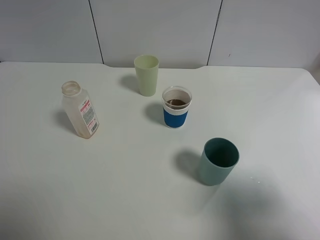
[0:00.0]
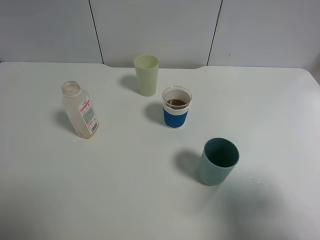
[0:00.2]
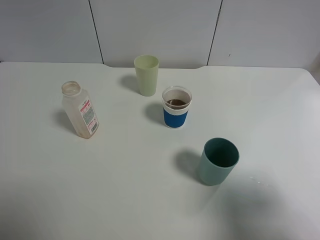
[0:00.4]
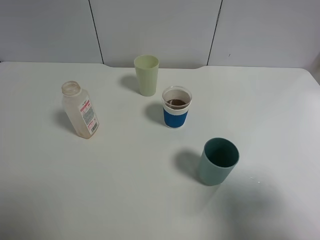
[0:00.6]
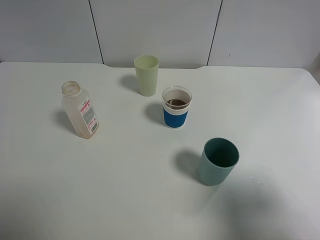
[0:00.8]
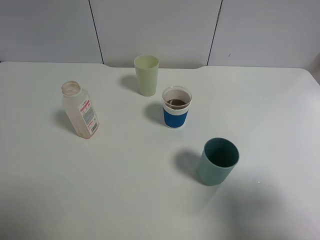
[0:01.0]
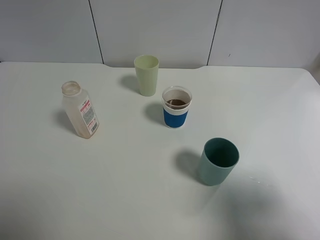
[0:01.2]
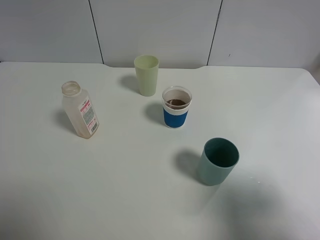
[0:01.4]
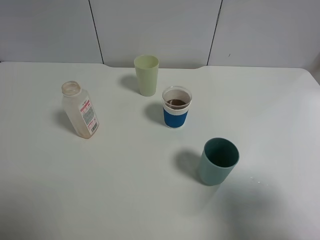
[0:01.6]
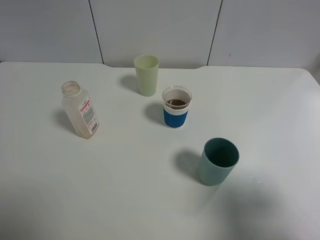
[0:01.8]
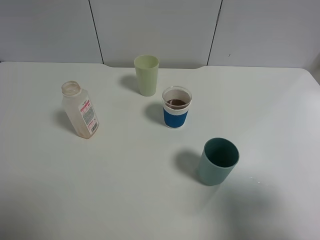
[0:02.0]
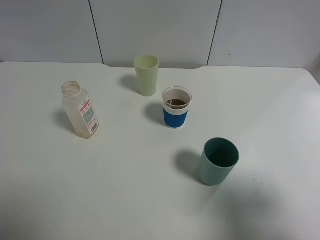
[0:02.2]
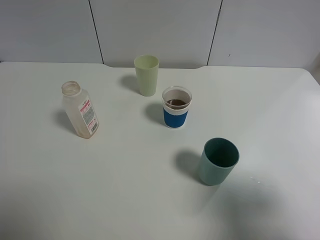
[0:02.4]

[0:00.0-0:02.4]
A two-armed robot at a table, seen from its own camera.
Task of the whole recording: use a gripper to hold the bottle of the drink and pour it into a random cup.
0:00.0 to 0:02.4: Both grippers stay about where they are.

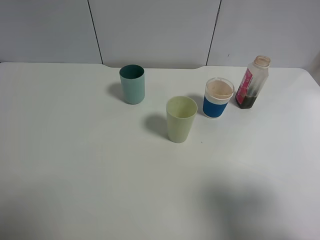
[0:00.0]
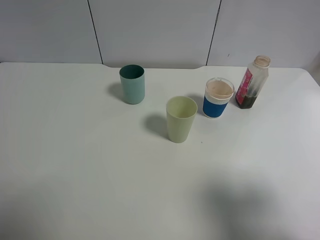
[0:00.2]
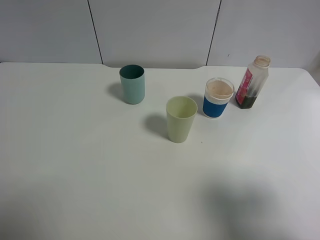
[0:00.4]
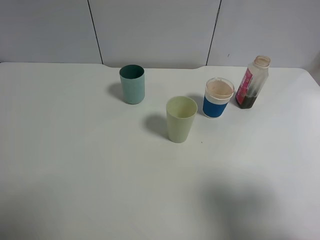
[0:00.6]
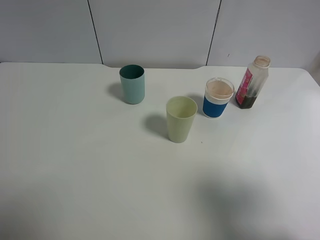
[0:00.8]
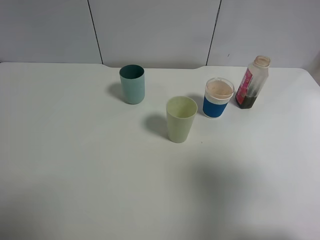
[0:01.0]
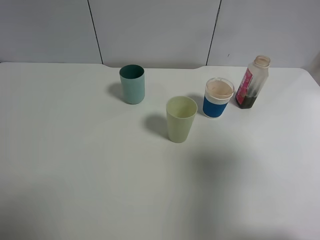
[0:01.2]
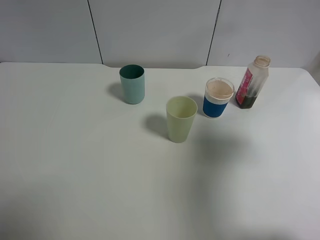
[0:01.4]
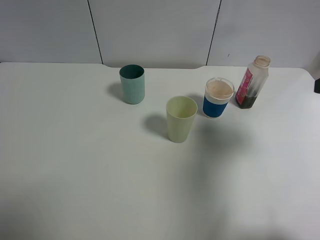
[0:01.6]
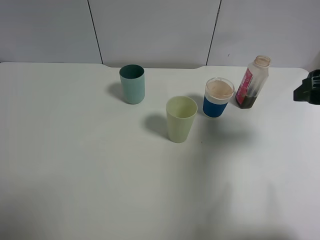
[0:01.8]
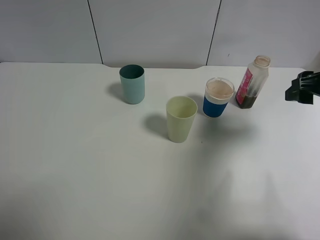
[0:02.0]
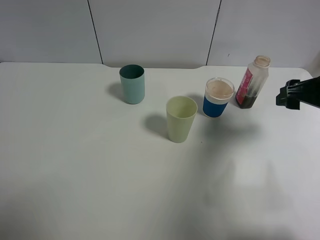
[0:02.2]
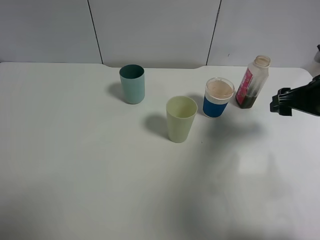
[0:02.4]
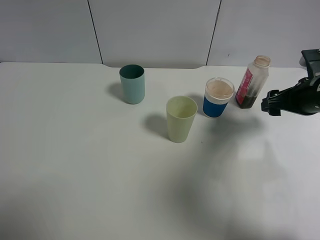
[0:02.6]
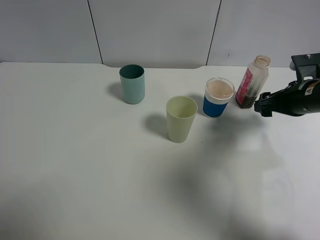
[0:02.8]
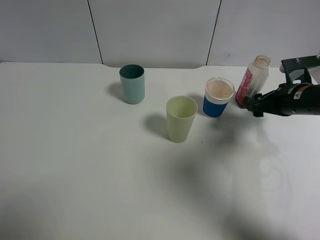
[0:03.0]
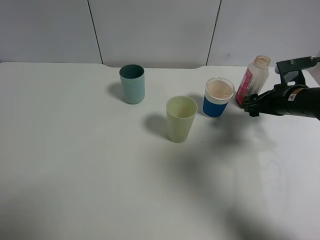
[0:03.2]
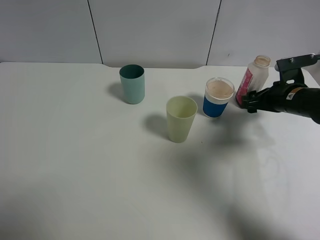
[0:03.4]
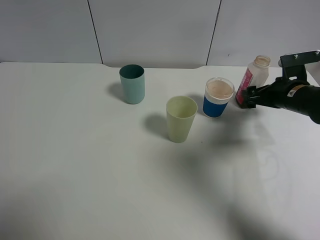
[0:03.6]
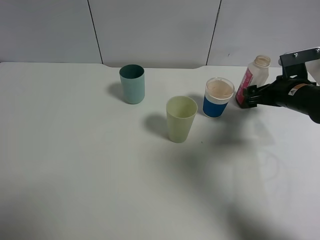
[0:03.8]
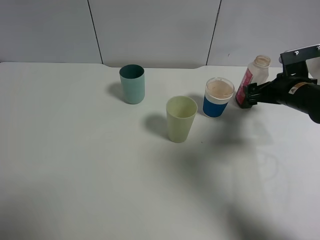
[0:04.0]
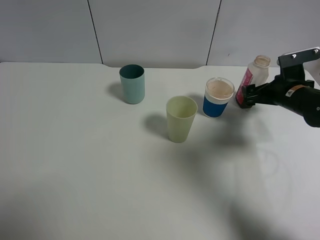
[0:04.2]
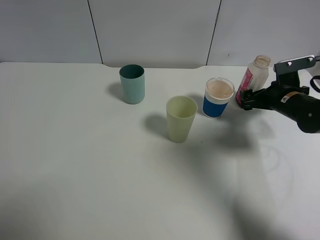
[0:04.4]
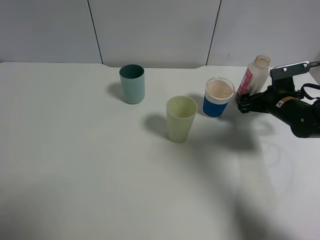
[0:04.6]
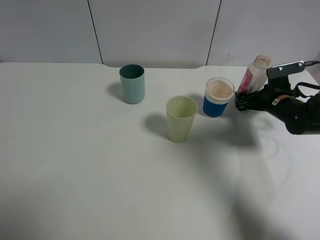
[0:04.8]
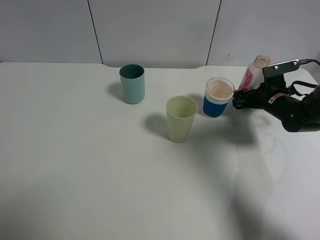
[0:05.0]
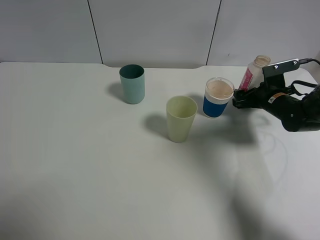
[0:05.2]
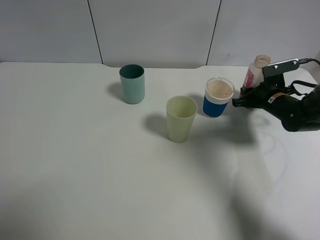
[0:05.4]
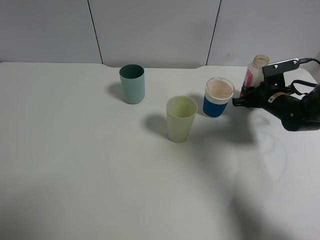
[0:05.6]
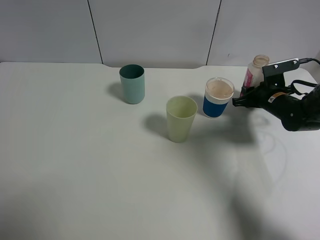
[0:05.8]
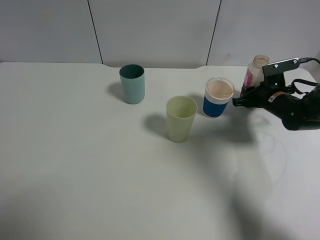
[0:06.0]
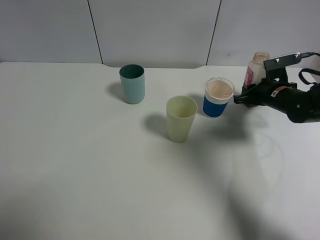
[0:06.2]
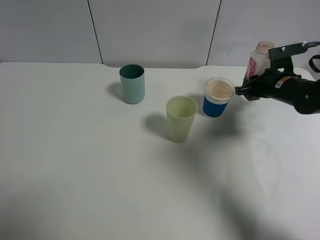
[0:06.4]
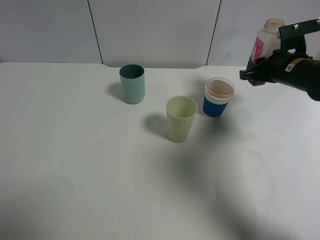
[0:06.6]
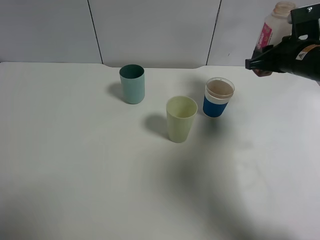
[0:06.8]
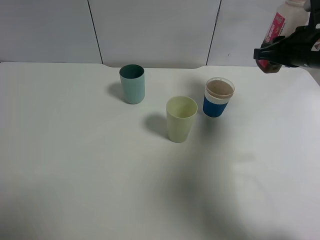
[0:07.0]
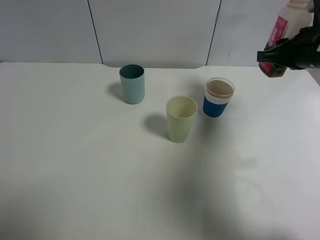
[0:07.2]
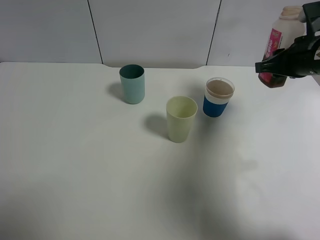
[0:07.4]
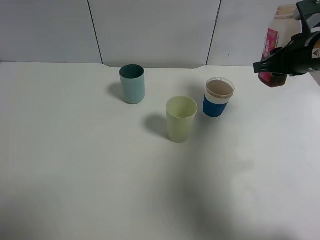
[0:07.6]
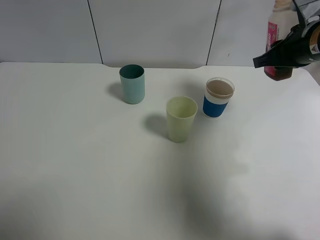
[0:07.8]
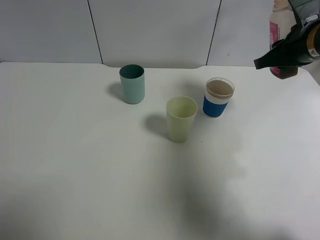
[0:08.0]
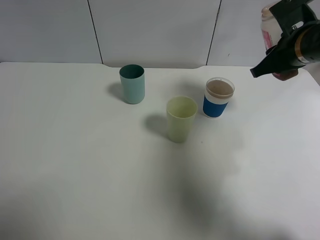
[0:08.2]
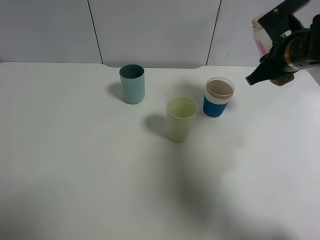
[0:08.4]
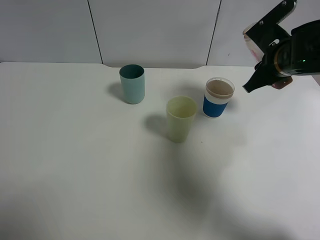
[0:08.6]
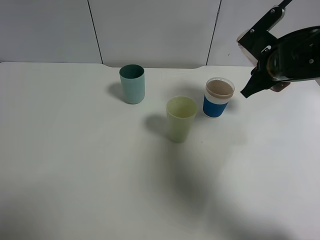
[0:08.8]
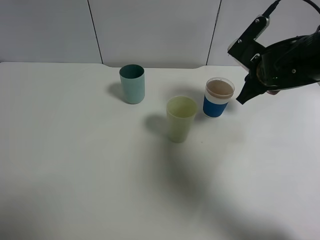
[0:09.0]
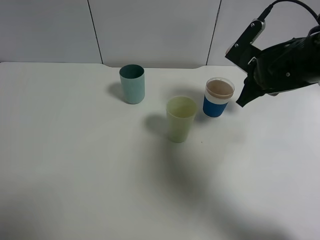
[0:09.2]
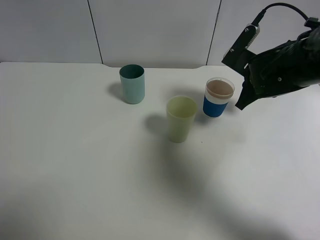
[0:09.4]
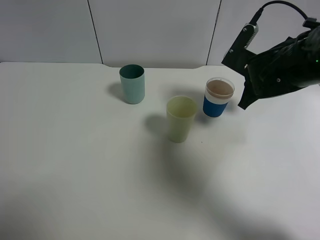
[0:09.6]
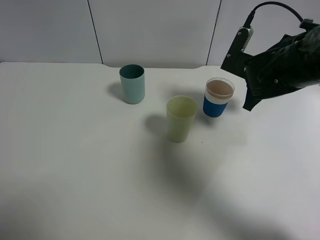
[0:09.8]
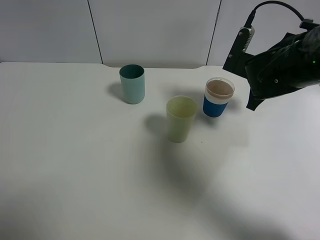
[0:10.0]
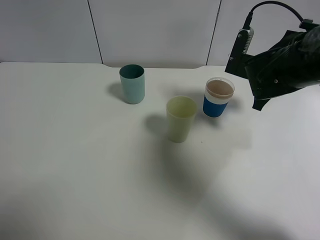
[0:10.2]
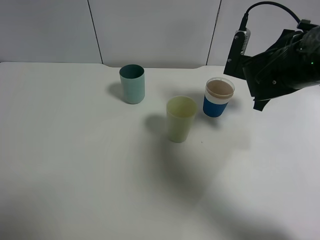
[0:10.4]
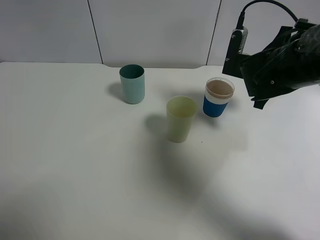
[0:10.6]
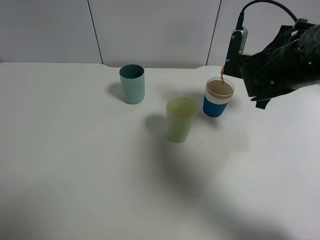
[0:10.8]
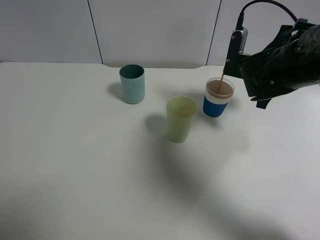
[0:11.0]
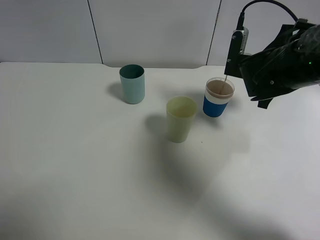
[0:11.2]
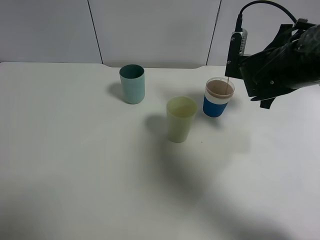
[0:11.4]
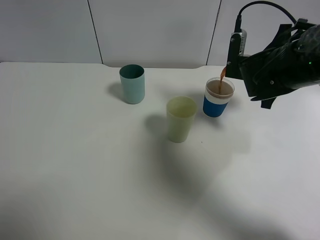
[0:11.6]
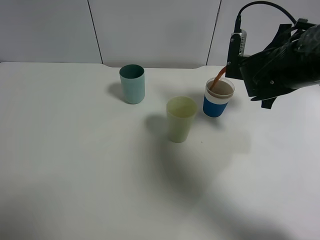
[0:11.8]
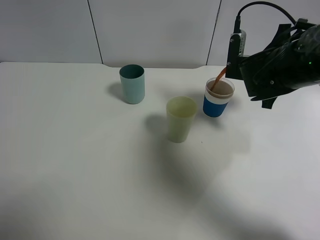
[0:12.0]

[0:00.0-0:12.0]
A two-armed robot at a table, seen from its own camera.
Task of the whole recording: use a gripper to hold the bottle of the drink and pour it into a random cup.
Step, 0:00.0 to 0:05.6: Grasp the cranberry juice bottle with the right gripper.
0:00.0 to 0:01.6: The right gripper goes roughly 15 cm forward.
0:01.6 to 0:03.0: The right gripper shifts approximately 20 cm downward and forward.
0:03.0 to 0:04.4: There are only small adjustments of the grippers.
0:04.4 to 0:06.0: The right gripper closes.
0:06.0 to 0:07.6: The right gripper shifts roughly 15 cm upward.
0:07.6 to 0:09.0: The right gripper shifts approximately 10 cm to the left and downward.
0:10.4 to 0:12.0: There are only small adjustments of the grippers.

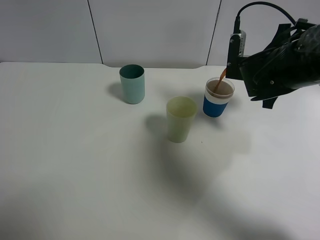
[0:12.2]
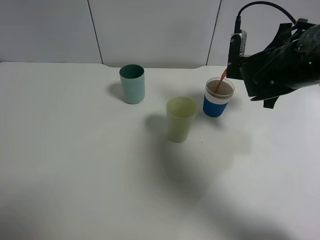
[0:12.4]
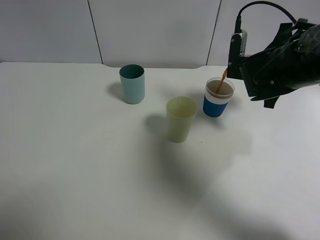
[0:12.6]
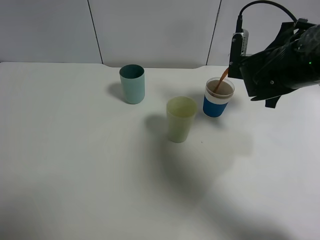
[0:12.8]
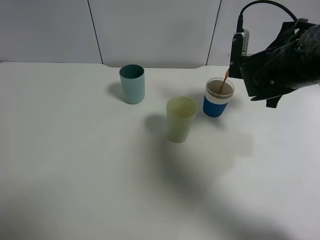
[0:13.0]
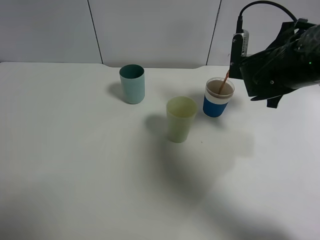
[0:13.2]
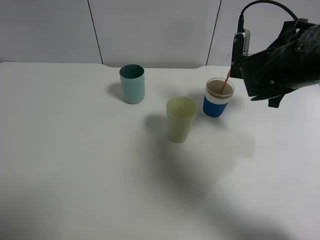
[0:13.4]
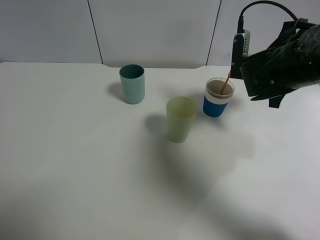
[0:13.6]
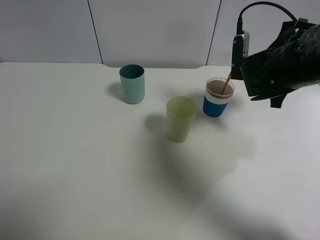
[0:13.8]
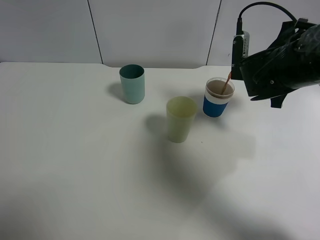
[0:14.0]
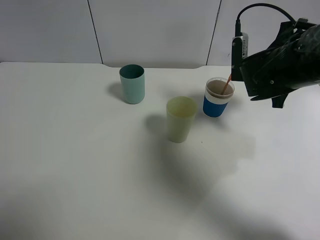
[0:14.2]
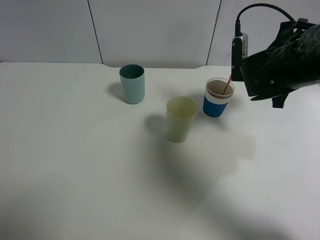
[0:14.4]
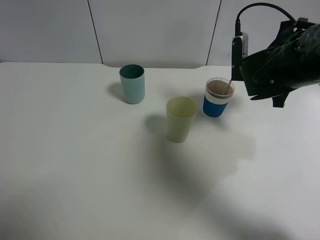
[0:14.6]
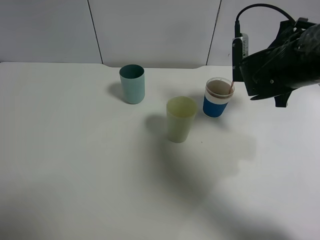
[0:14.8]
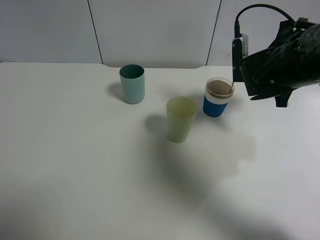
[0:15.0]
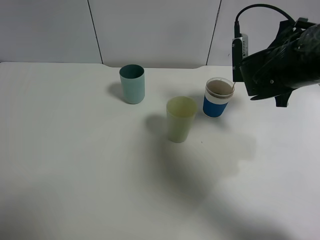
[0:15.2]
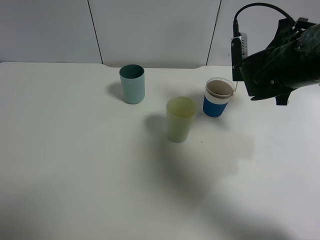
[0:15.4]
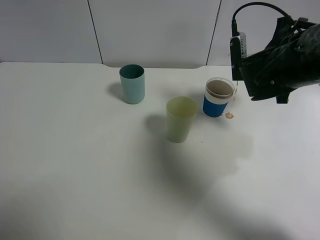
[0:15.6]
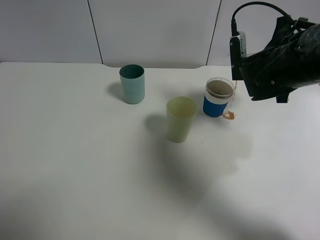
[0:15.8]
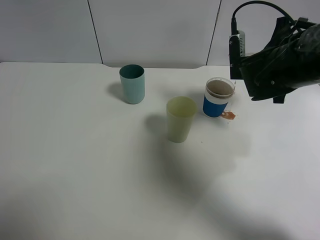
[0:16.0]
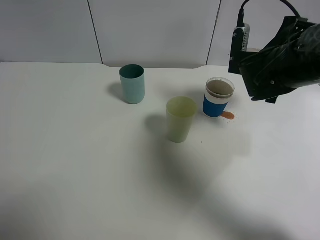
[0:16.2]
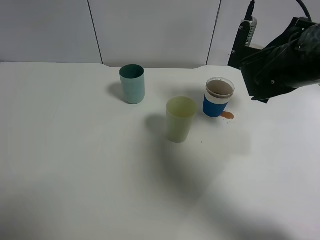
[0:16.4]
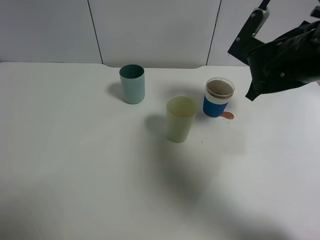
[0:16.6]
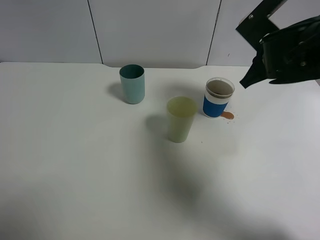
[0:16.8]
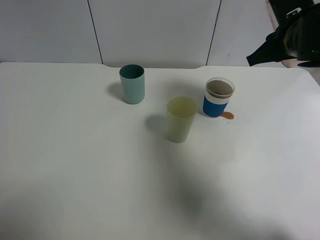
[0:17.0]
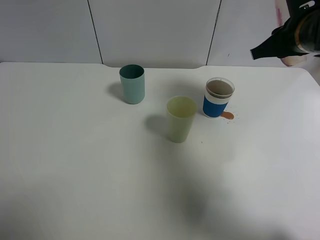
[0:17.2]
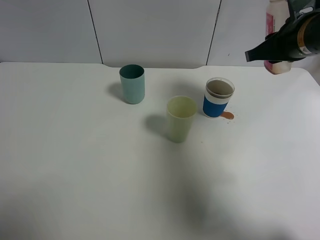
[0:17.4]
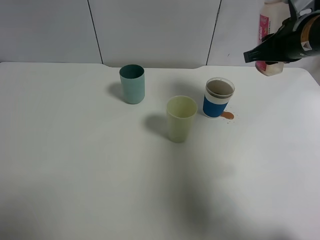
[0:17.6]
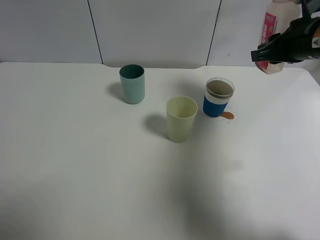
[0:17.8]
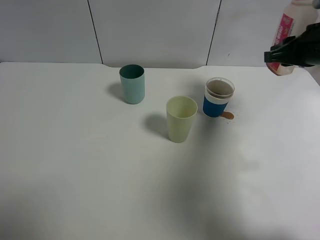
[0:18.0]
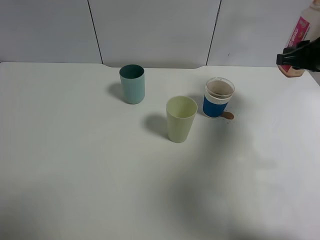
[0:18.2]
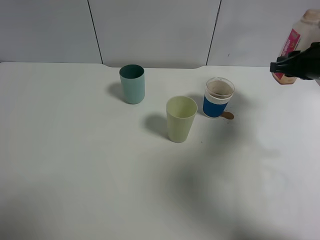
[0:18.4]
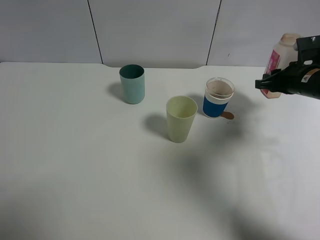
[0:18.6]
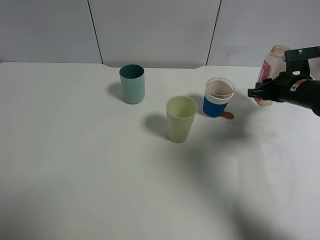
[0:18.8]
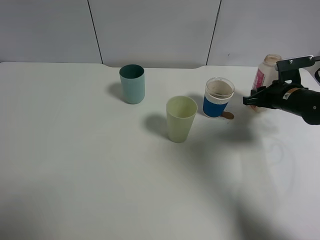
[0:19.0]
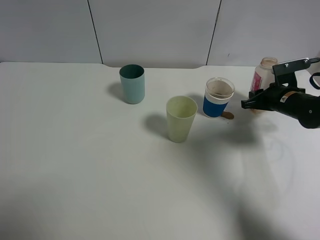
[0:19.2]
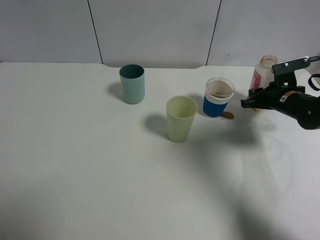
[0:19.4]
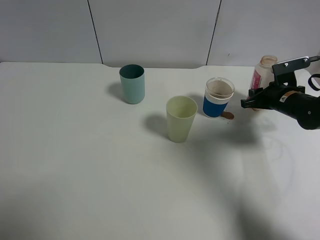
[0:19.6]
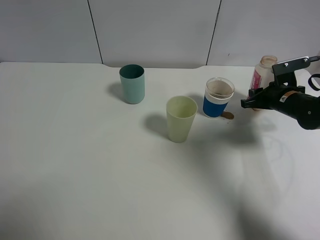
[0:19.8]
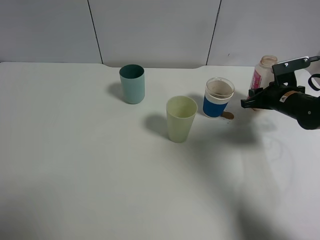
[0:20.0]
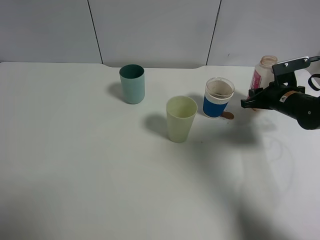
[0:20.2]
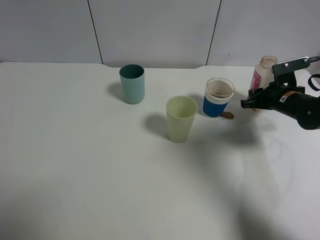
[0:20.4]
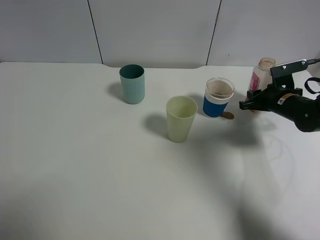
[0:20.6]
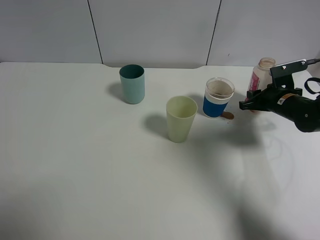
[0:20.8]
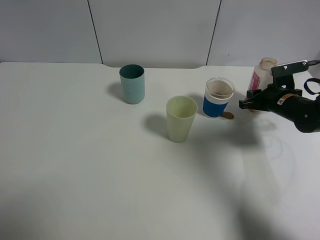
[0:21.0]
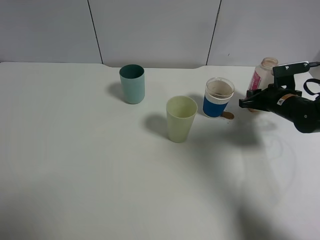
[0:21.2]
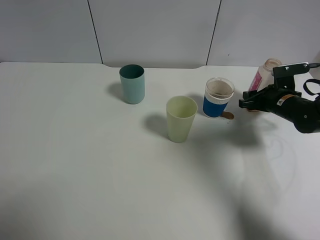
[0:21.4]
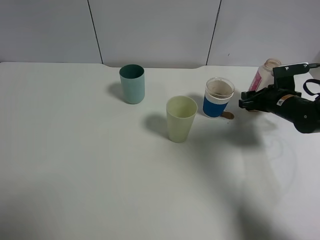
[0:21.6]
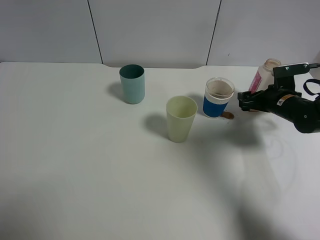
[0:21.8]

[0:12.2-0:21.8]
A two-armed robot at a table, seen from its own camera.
Task of the whole recording: use a gripper to hold the bottle of the drink and pour it into a random cup.
Step, 0:12.2 to 0:16.4: Pour the cranberry juice into the paper cup with the right gripper.
0:12.2 to 0:15.4: There are only small adjustments of the grippers.
0:15.4 to 0:17.0: The right gripper heads upward, covering some 5 cm.
0:17.0 to 0:18.6: The right gripper is displaced downward and to the right by about 15 cm.
0:18.6 to 0:20.2: The right gripper heads downward, covering about 5 cm.
0:20.2 to 0:21.8: The right gripper opens.
